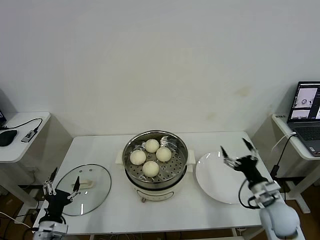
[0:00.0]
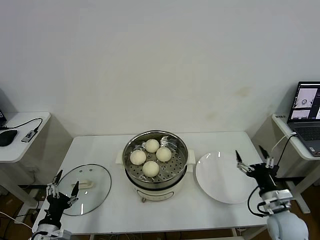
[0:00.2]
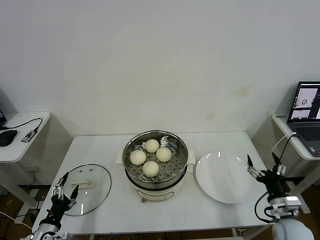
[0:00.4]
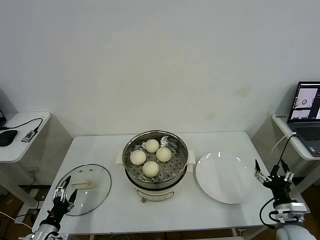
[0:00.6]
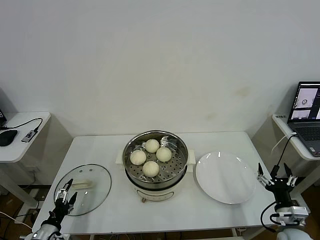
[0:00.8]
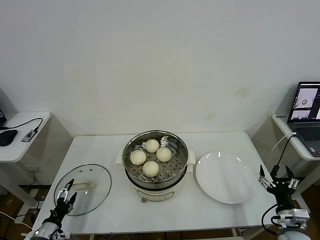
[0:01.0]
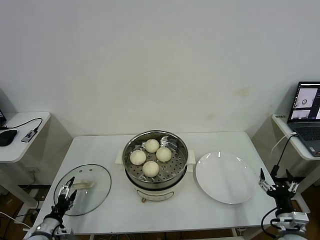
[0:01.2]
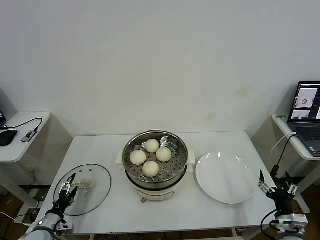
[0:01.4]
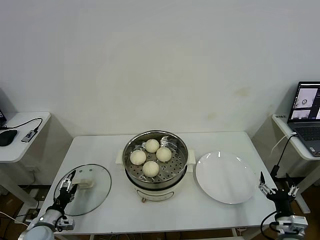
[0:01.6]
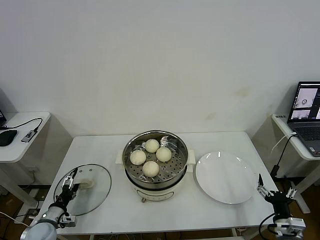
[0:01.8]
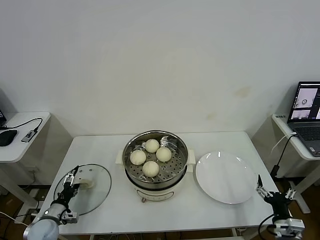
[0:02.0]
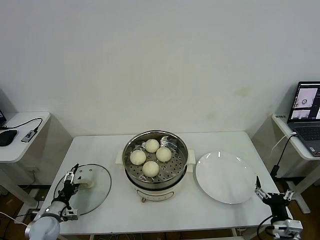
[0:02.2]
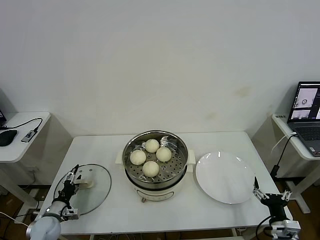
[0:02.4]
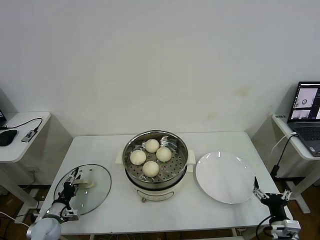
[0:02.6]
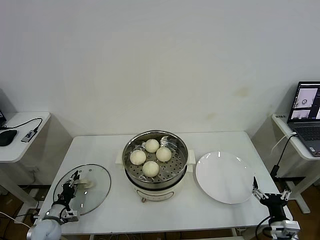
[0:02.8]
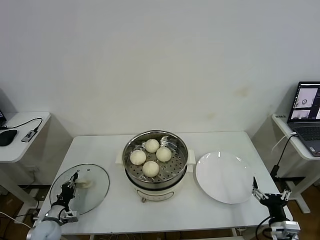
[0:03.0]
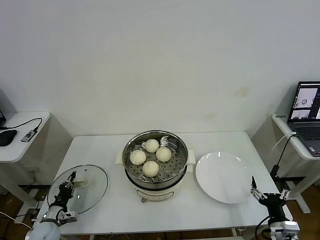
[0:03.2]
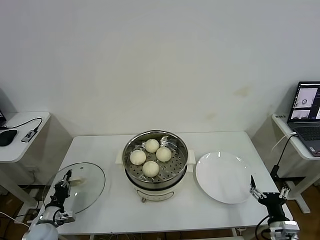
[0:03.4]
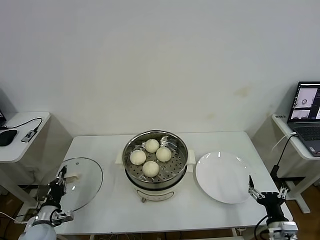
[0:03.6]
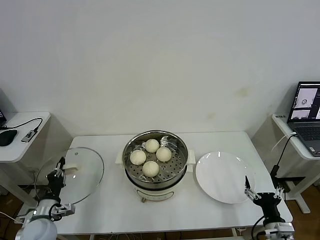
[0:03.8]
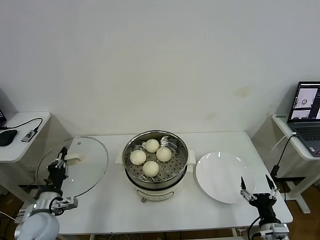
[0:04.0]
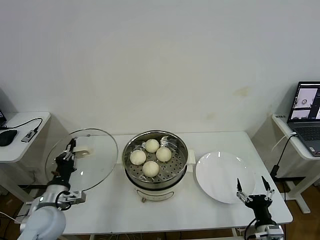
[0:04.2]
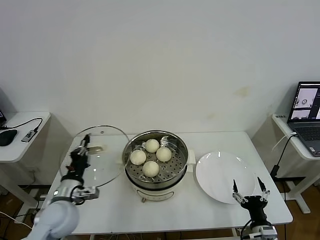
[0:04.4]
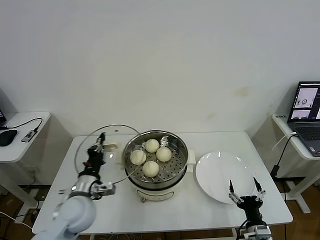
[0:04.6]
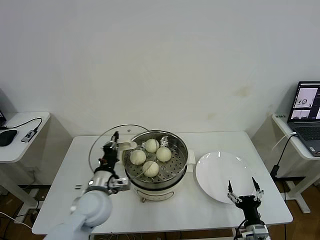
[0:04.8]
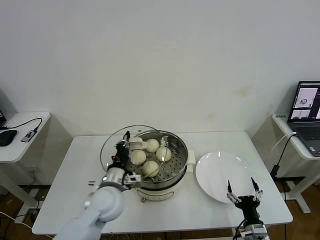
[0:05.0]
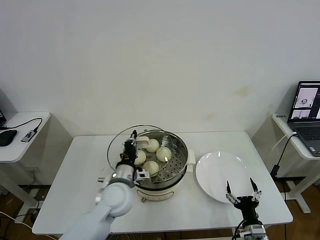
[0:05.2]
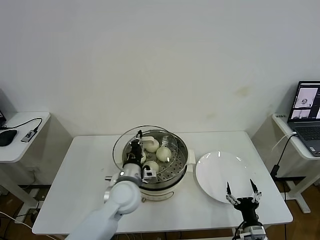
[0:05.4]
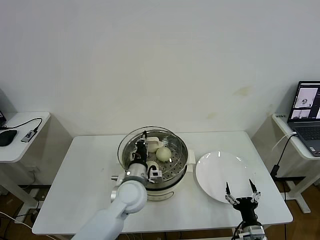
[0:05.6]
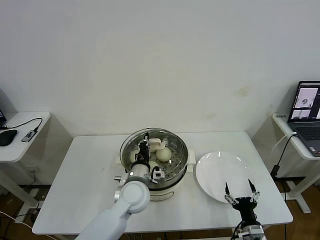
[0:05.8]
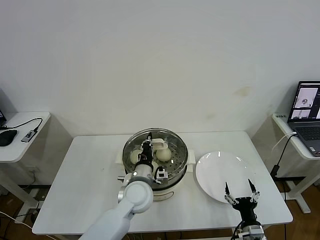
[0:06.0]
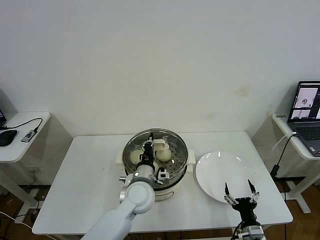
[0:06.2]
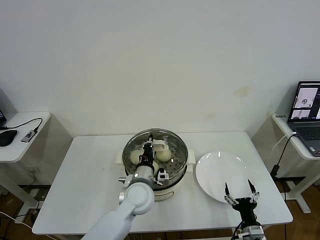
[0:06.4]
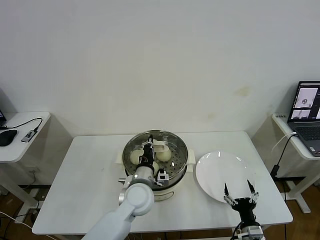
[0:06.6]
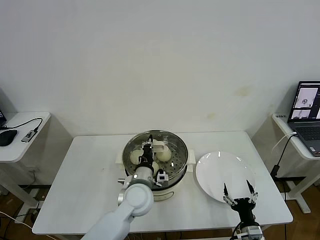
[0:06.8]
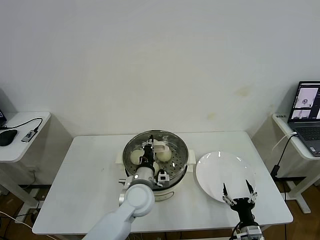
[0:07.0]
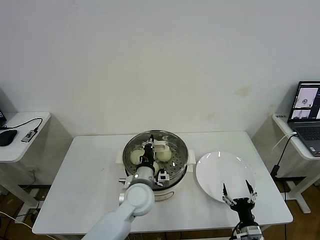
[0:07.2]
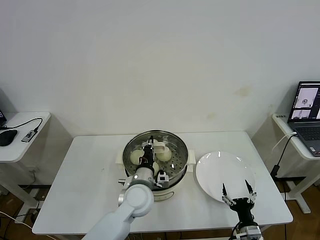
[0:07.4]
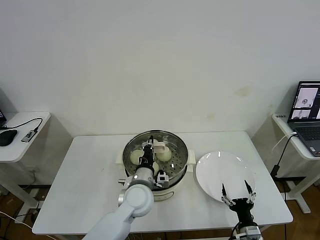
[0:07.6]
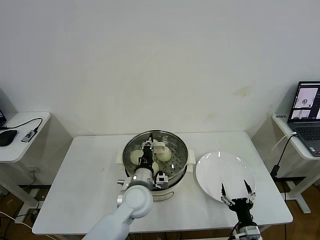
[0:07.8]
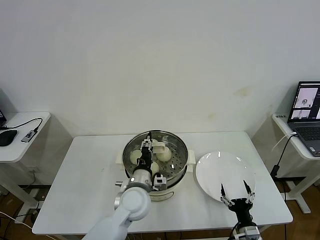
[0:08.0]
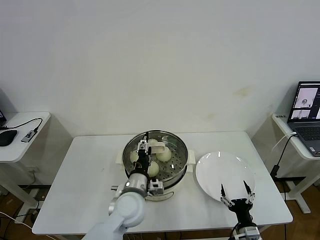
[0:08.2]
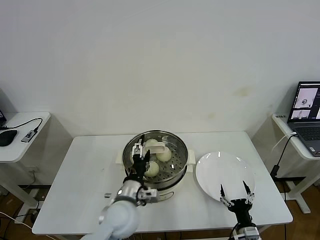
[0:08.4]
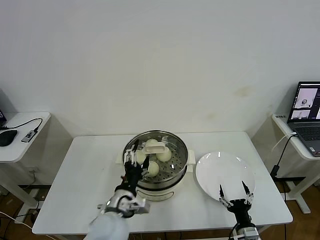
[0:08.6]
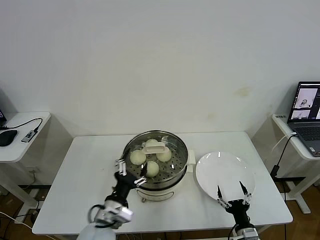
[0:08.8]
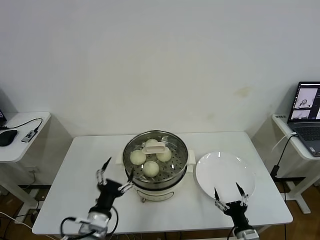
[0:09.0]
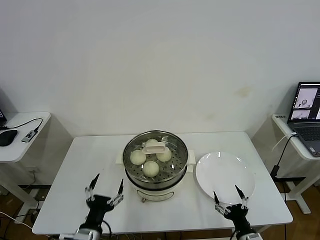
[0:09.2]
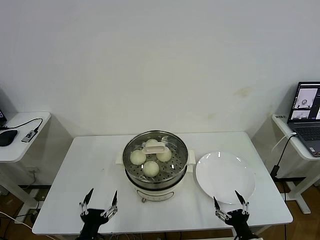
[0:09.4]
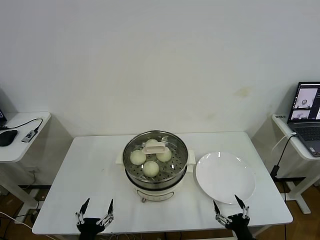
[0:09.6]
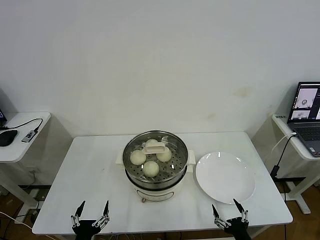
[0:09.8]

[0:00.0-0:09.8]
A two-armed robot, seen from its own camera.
Task of the whole recording: take steamed baozi put them in steamer then cover it.
Step, 0:00.0 to 0:03.0: Grasp the pot lid with left gripper.
Step, 0:03.2 to 0:08.4: Place the pot lid on the steamer with left gripper.
0:00.0 to 0:01.4: The left gripper travels downward, to the left and forward by about 10 cm; the right gripper goes approximately 10 cm backward and downward.
0:01.4 to 0:02.8: The left gripper ends up some 5 cm from where it was, and closes its fingers.
0:02.8 to 0:04.2: The left gripper is displaced upward and to the right by approximately 20 cm, and closes.
0:04.2 to 0:05.6: The left gripper shifts roughly 25 cm to the right.
0:05.6 to 0:07.0: The grippers make only small movements.
0:07.0 to 0:08.4: The left gripper is displaced backward by about 5 cm, and opens up.
0:08.4 to 0:09.8: The left gripper is displaced backward, to the left and downward by about 25 cm. Meanwhile the right gripper moves backward, about 5 cm.
